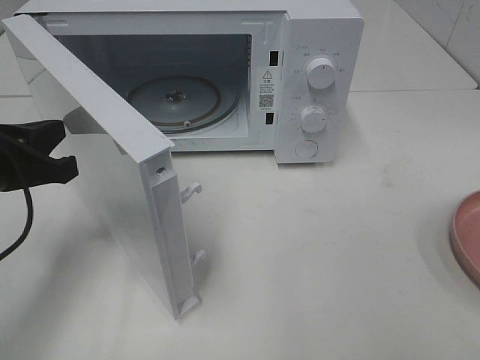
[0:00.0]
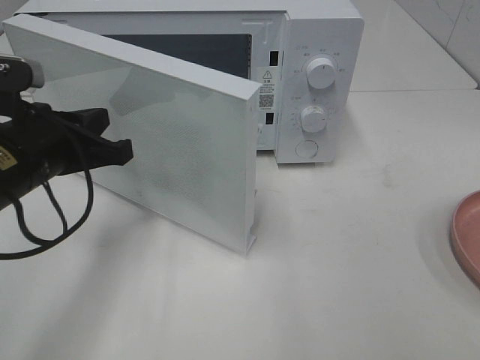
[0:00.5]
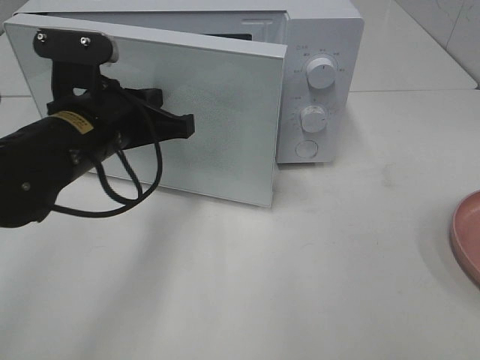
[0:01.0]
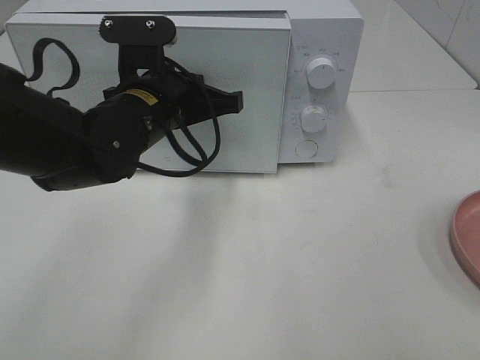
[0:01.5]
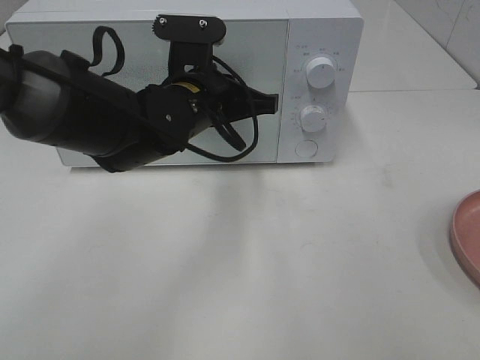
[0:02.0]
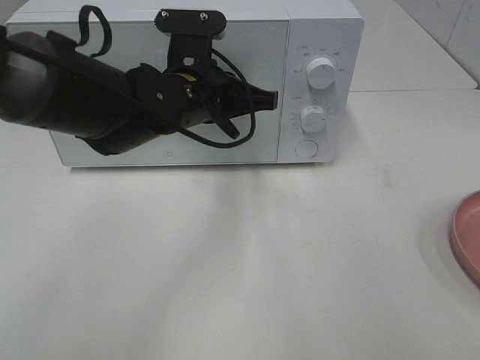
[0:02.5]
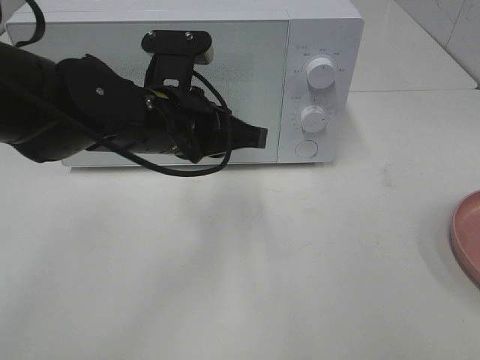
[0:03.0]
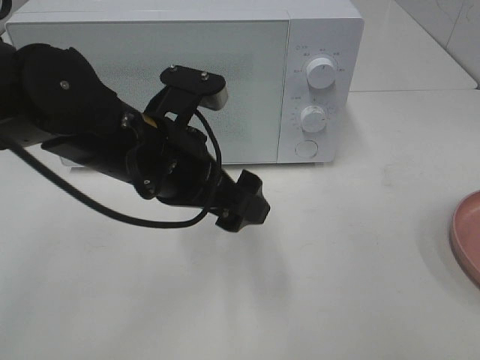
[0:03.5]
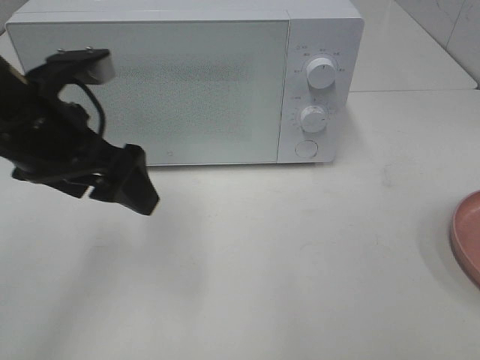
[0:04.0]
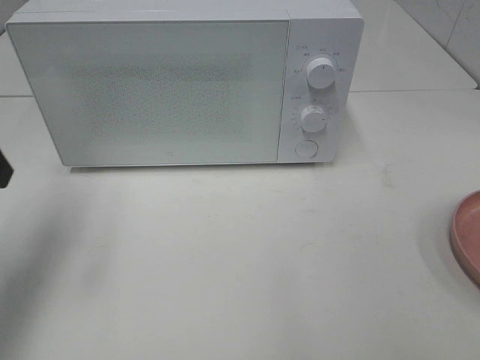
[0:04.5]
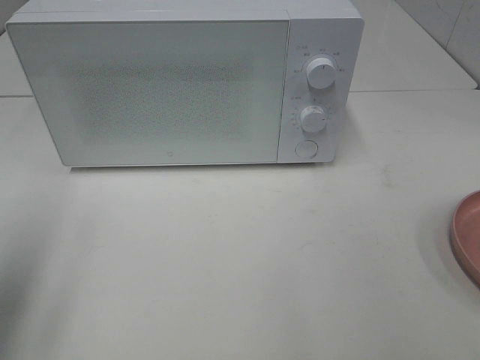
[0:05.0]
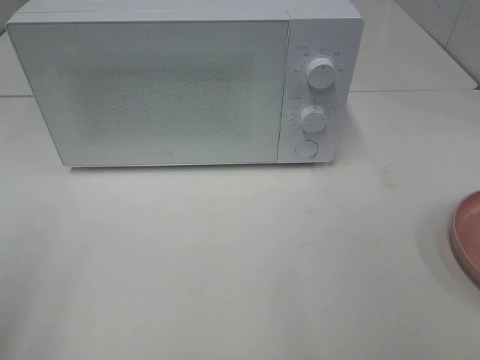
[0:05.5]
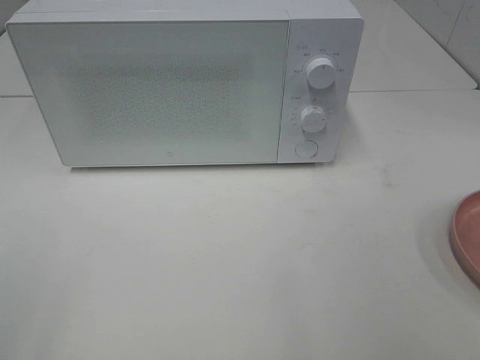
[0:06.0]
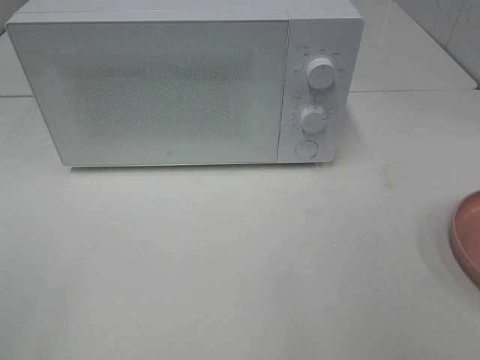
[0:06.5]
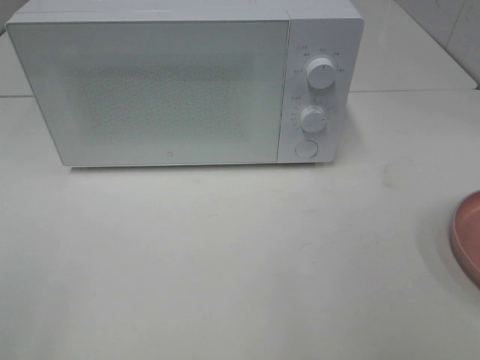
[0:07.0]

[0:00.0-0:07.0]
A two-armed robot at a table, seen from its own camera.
Task of the whole recording: Heat the burger.
Step, 0:00.0 to 0:03.0: Left hand: close the microwave door.
0:00.0 to 0:02.0: The left gripper travels to the right and forward by about 20 cm.
0:02.0 to 0:03.5: The left gripper goes about 10 cm backward, and opens up.
0:03.5 to 0:05.0: The left gripper travels to the left by approximately 25 cm.
0:05.0 to 0:07.0: The left gripper travels backward by roughly 15 cm.

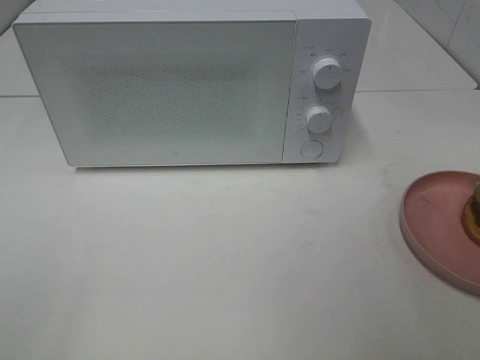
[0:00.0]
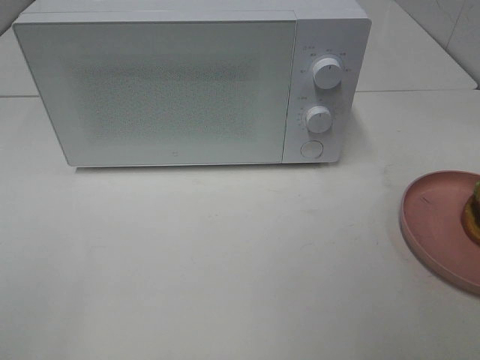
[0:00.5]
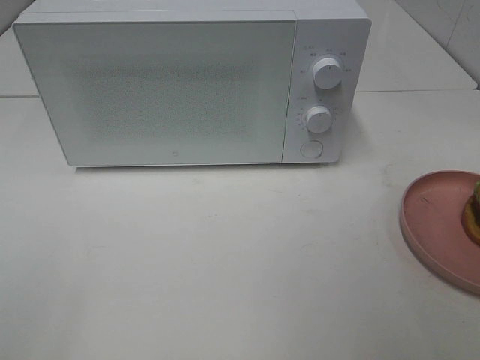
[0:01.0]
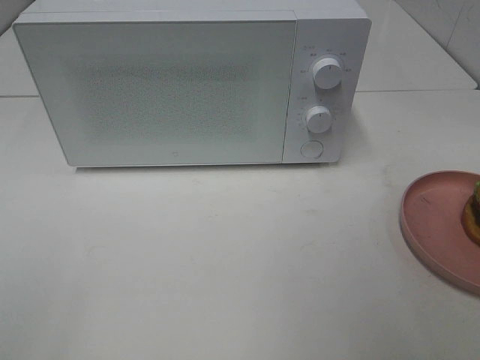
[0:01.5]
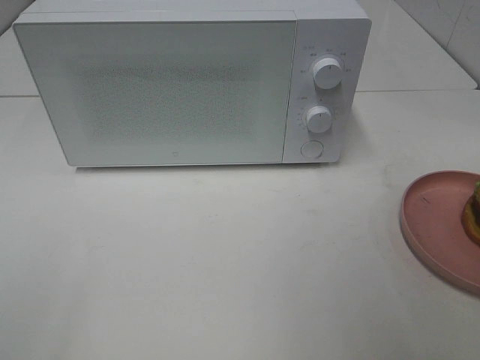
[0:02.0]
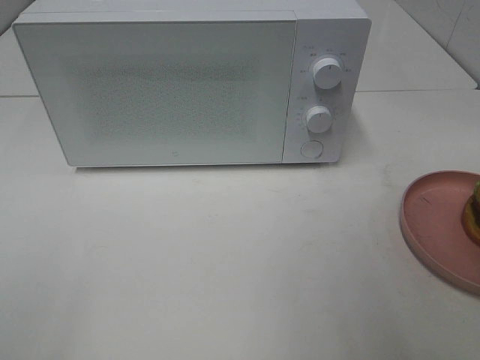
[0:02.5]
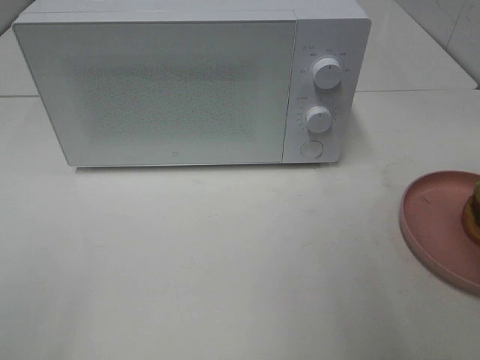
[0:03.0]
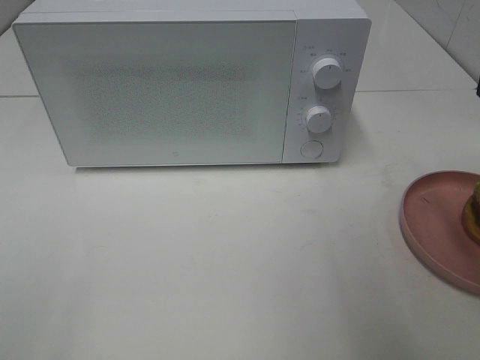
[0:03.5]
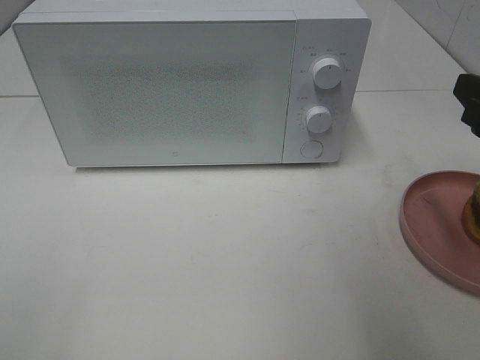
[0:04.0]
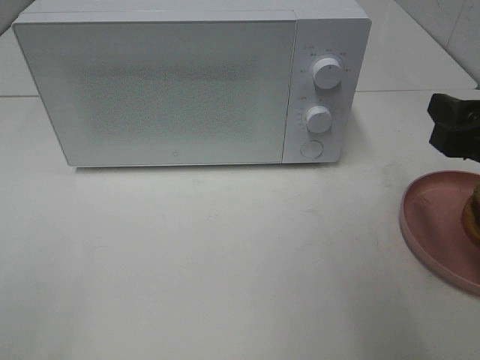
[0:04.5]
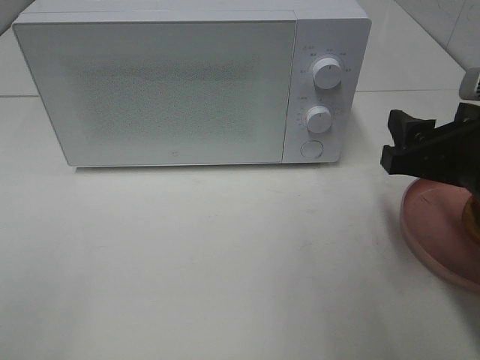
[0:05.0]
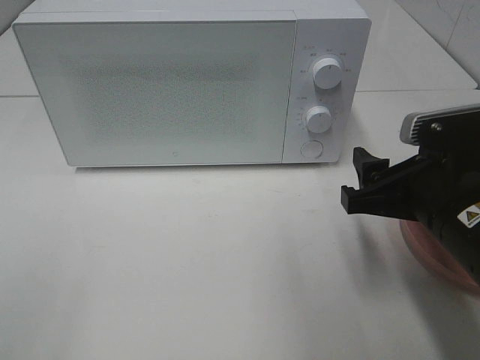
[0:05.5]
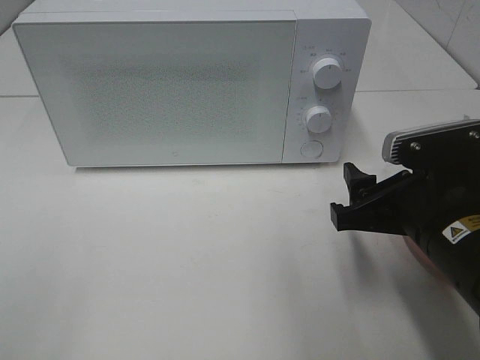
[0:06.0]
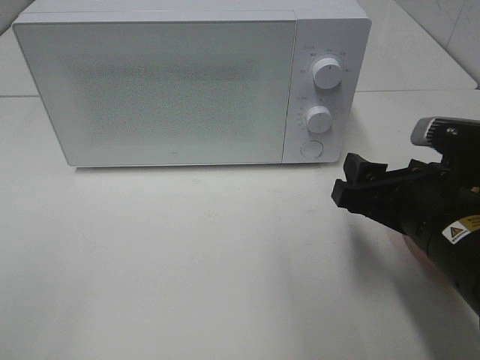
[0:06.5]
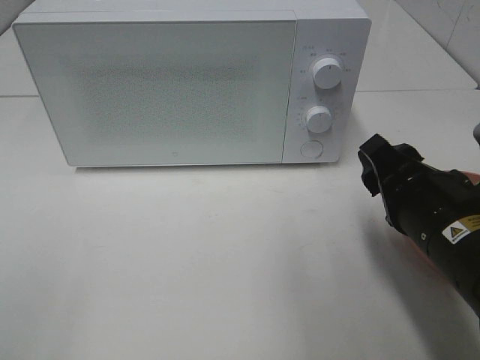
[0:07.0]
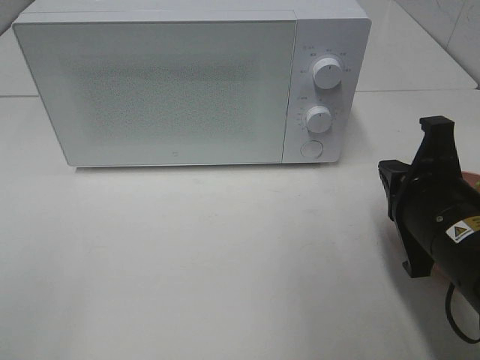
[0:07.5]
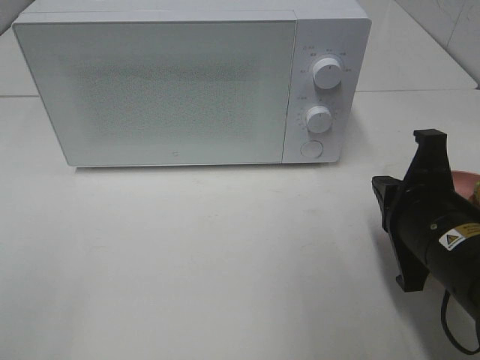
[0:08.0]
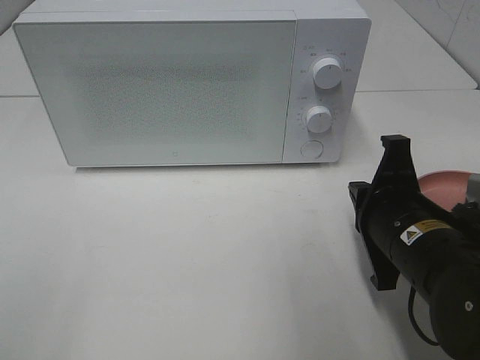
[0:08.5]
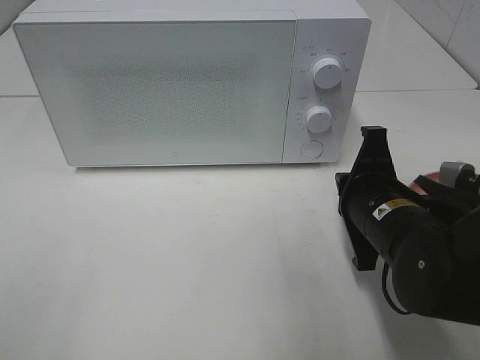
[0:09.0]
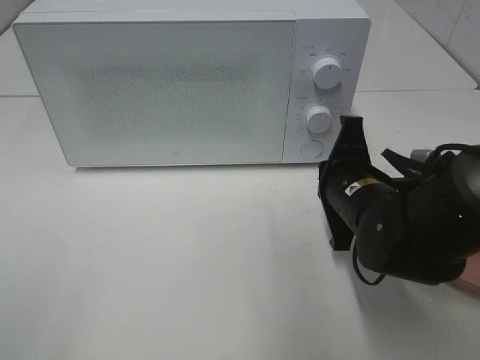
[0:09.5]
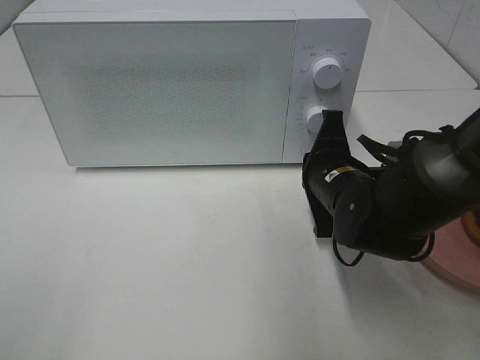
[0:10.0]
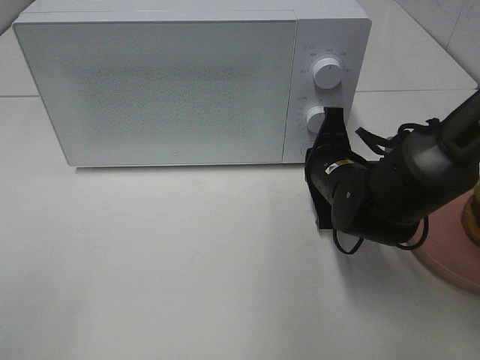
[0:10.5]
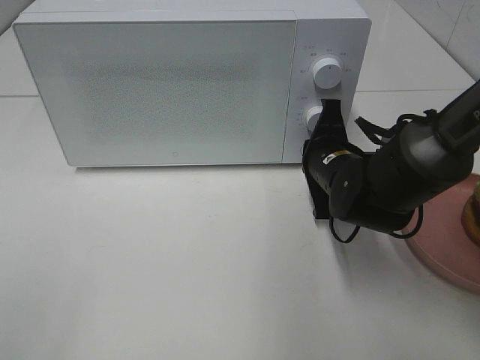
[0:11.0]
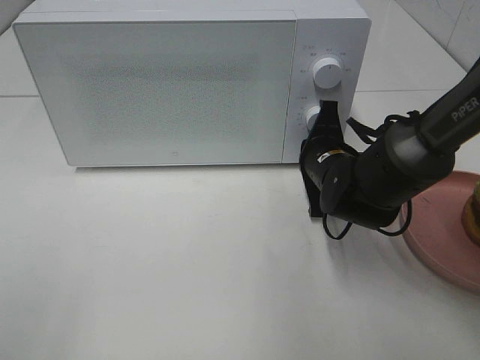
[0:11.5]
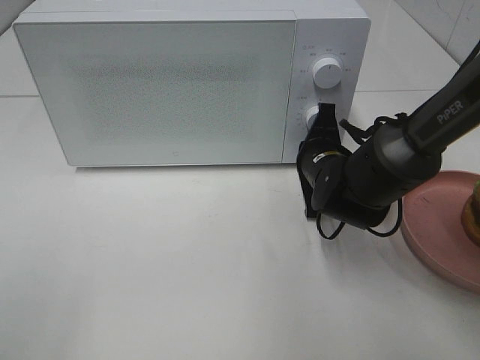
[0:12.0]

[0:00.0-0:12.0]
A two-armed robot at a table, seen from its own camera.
Task of the whole recording: Heat the burger.
0:02.0 to 0:04.0: The right gripper heads forward and downward, covering some 15 cm.
0:04.0 to 0:06.0: The right gripper heads to the left and downward, covering some 15 cm.
0:06.0 to 0:08.0: The right gripper closes its fingers.
0:08.0 to 0:10.0: The right gripper moves forward and to the left, roughly 15 cm.
0:10.0 to 0:12.0: The right gripper goes approximately 5 cm forward.

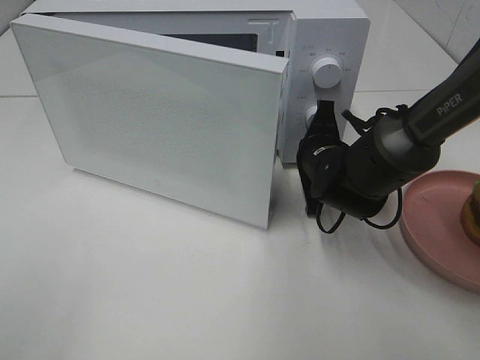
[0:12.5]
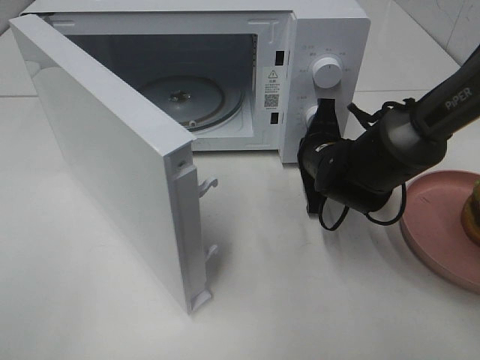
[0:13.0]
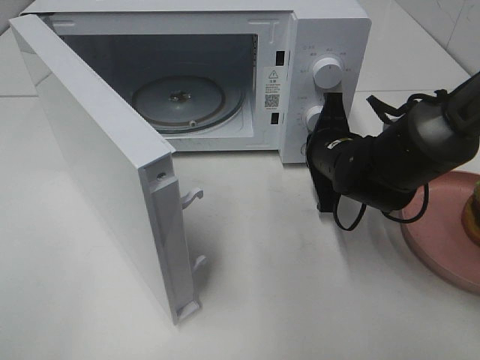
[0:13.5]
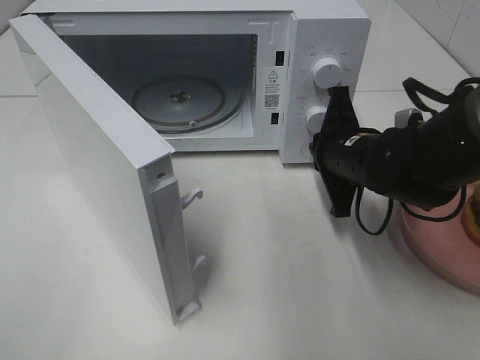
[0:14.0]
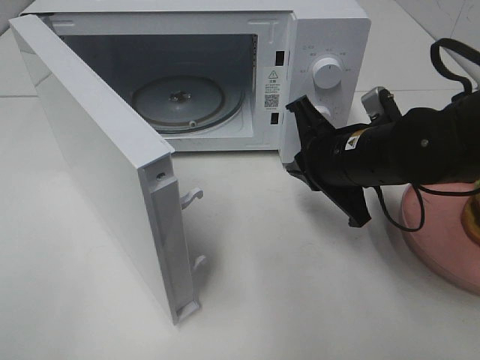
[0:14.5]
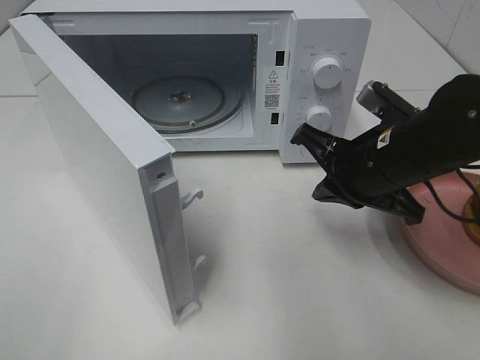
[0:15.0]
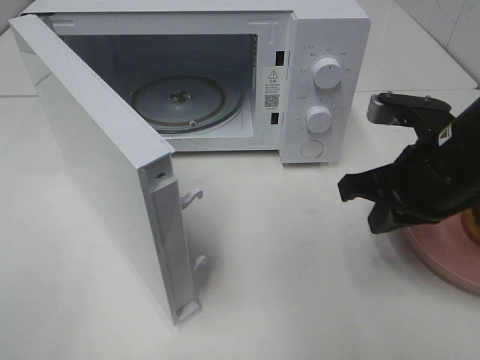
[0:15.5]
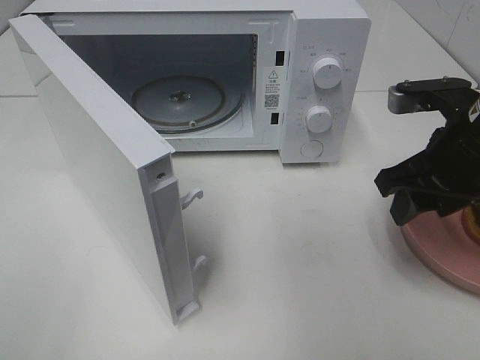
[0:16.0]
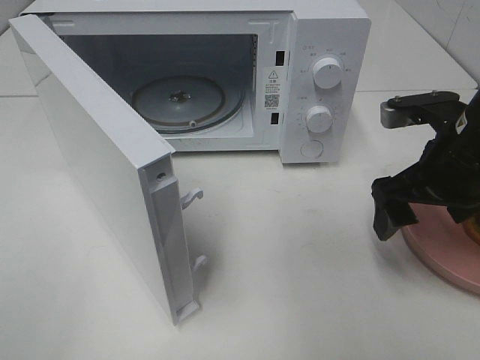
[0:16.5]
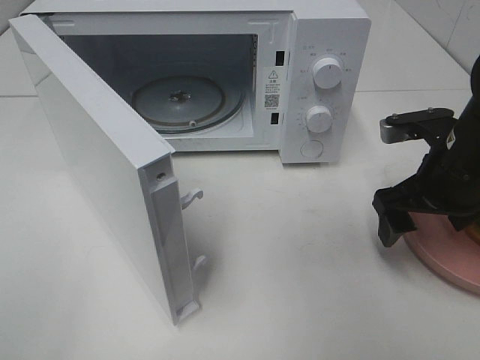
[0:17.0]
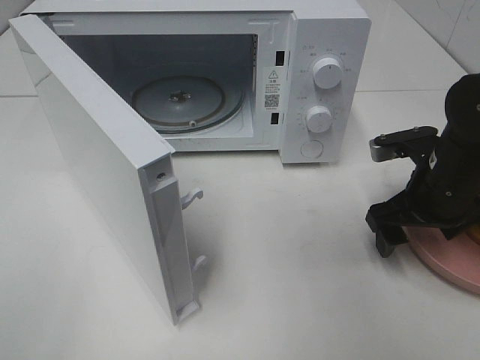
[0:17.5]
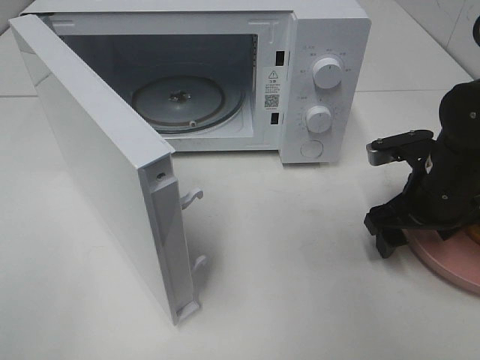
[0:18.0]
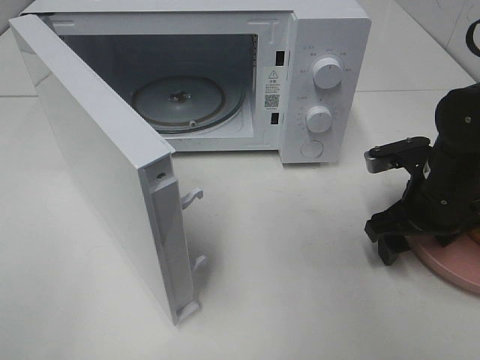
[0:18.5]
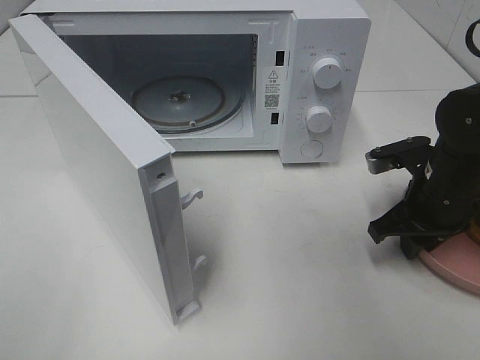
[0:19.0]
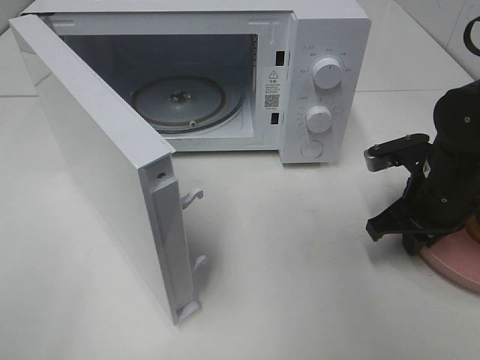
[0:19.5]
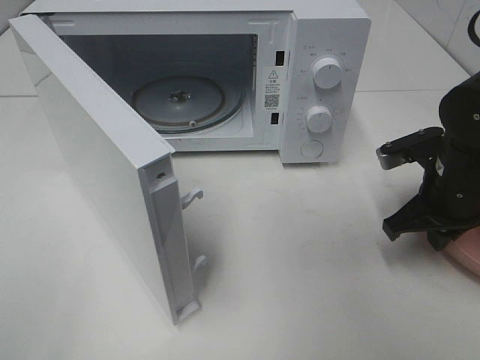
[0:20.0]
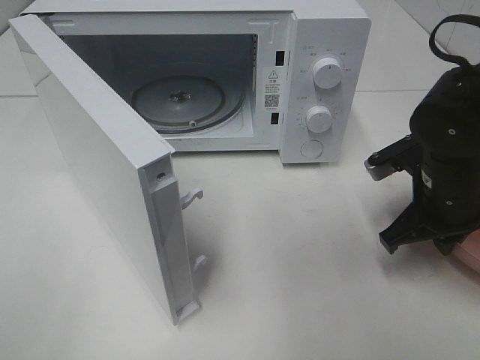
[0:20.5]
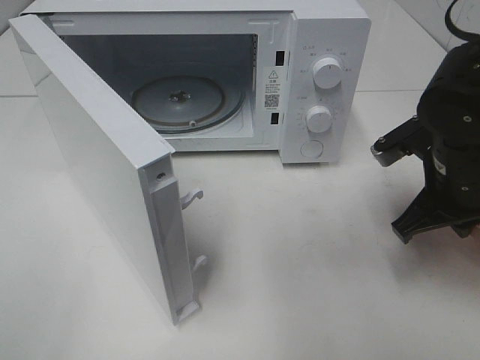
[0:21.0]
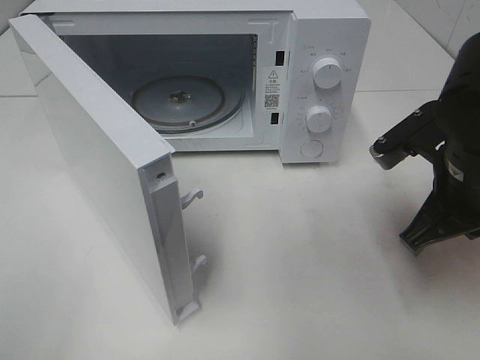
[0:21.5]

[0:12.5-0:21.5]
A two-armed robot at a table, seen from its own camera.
Task of the whole recording: Heat the burger.
Step, 0:14.5 to 0:20.0: Right hand: grab the plate with the hamburger.
0:12.5 to 0:14.5: The right gripper is displaced backward and upward by approximately 10 cm.
0:14.5 to 0:17.0: The right gripper travels to the right by roughly 10 cm, and opens its fingers.
0:17.0 to 0:19.5: The right gripper shifts by roughly 5 cm, and closes up.
0:19.5 to 0:21.5: The right gripper heads upward and backward, covering roughly 10 cm.
